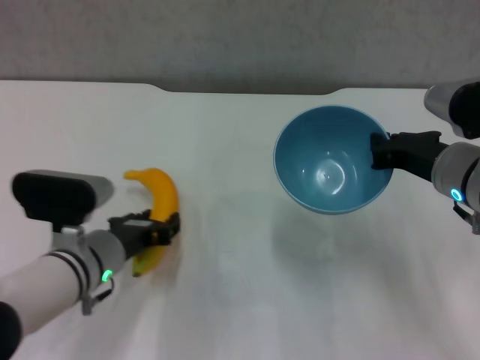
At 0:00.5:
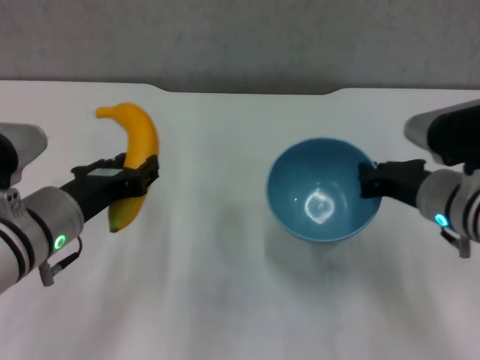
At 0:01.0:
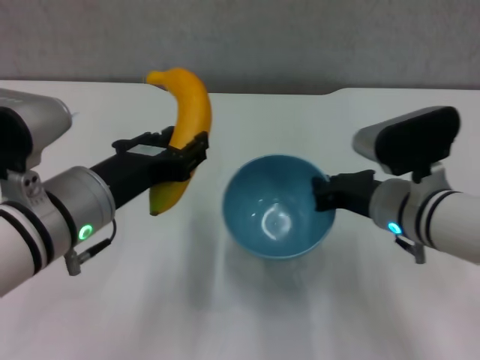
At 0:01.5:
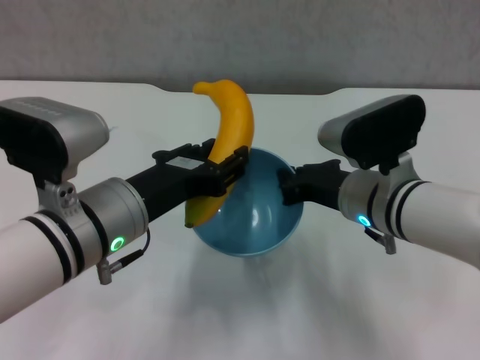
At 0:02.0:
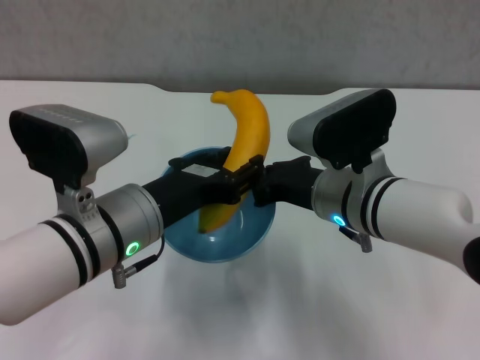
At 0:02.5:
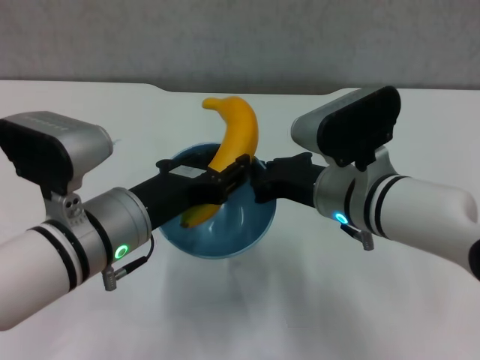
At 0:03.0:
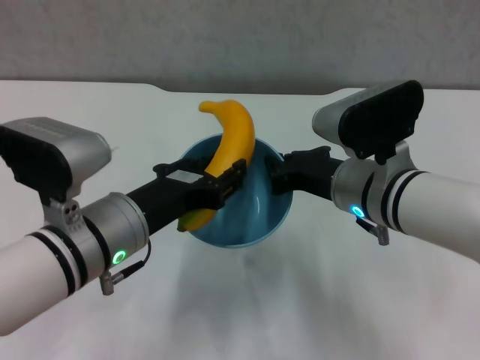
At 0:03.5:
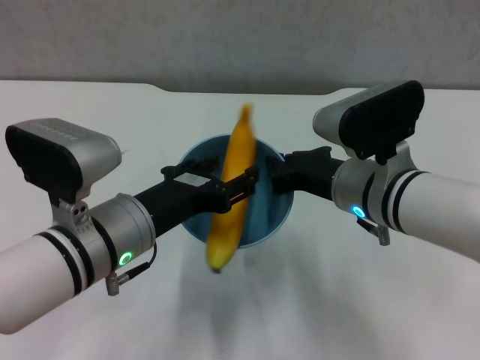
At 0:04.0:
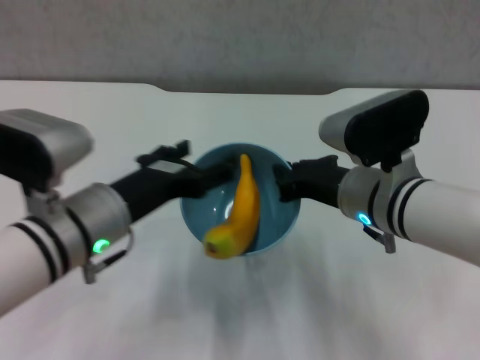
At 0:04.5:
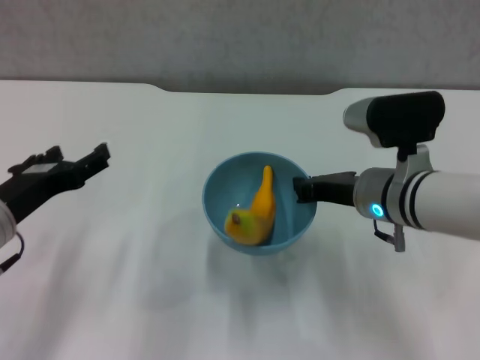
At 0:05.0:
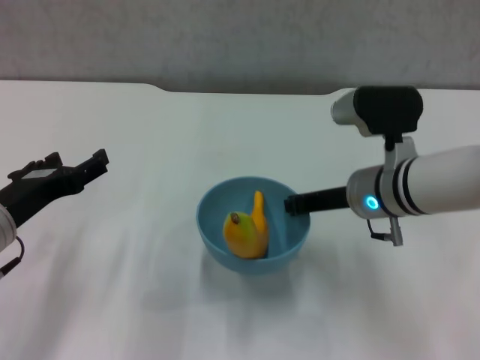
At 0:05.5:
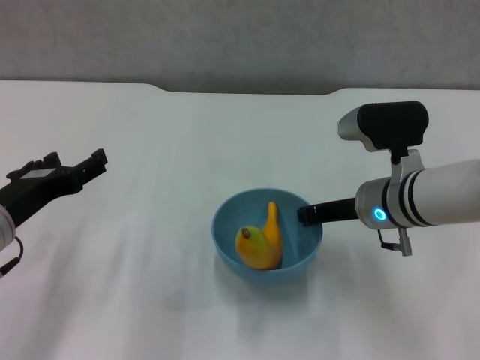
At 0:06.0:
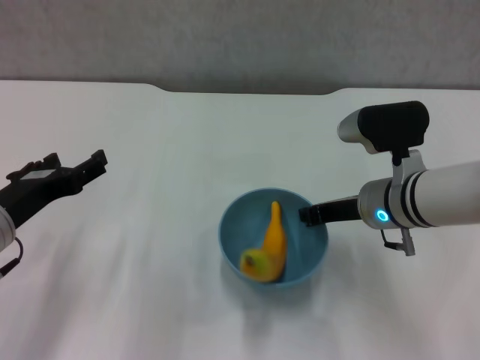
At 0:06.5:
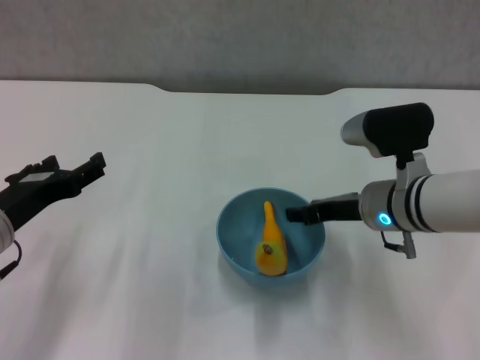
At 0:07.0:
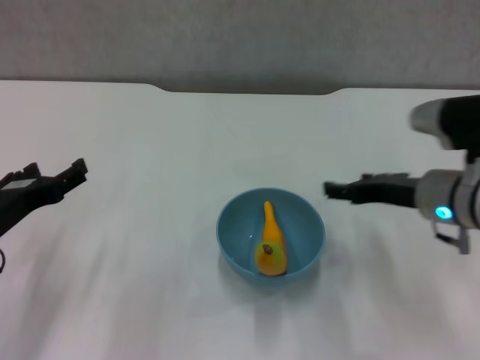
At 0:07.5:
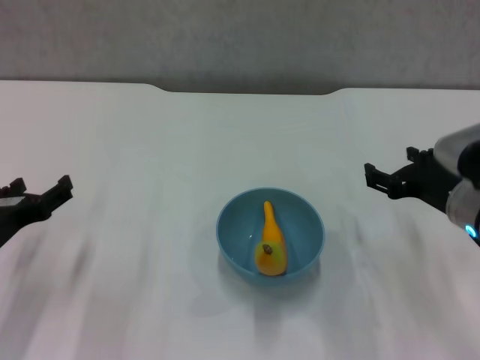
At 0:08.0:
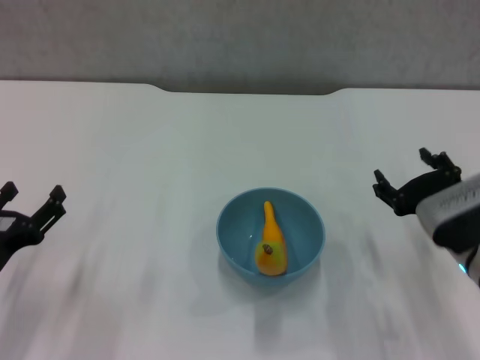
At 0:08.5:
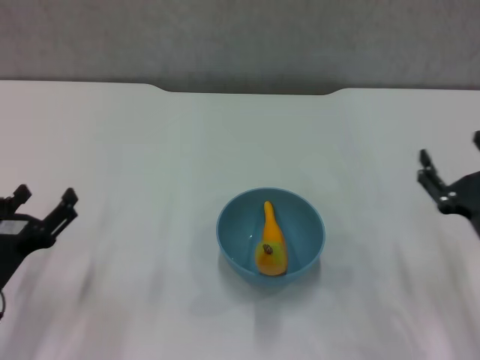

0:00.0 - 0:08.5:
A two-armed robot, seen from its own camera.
Step, 0:00.0 - 0:03.5: Place the banana in the blue bowl with left gripper.
Step, 0:04.0 - 0:06.5: Place the bowl on the table with right gripper.
0:00.0 - 0:02.0: The left gripper heads upward, covering approximately 10 cm; the right gripper travels to the left by roughly 10 cm.
0:02.0 - 0:04.0: The left gripper opens.
0:04.0 - 0:06.5: The right gripper changes place by roughly 5 cm, and opens up; the left gripper is displaced to the left by about 10 cm.
0:06.5 - 0:08.5: The right gripper heads backward and to the right, covering about 15 cm, and opens its fingers, while the left gripper heads downward, covering roughly 10 cm.

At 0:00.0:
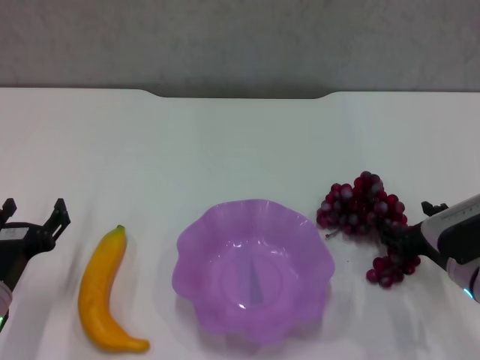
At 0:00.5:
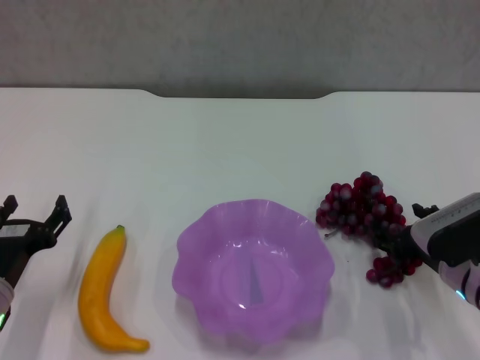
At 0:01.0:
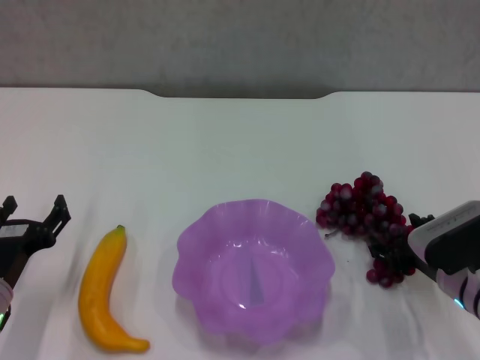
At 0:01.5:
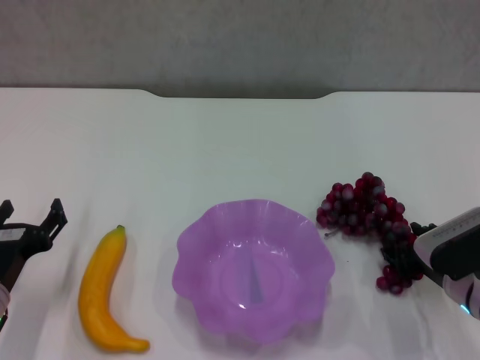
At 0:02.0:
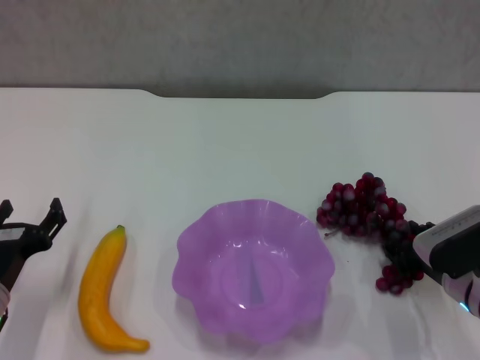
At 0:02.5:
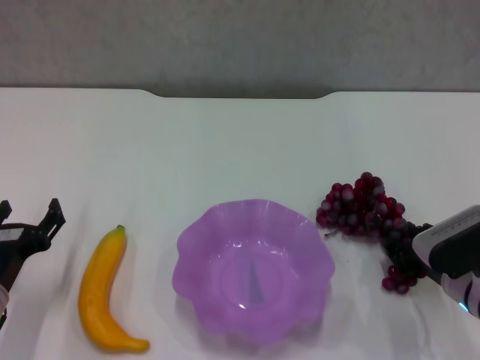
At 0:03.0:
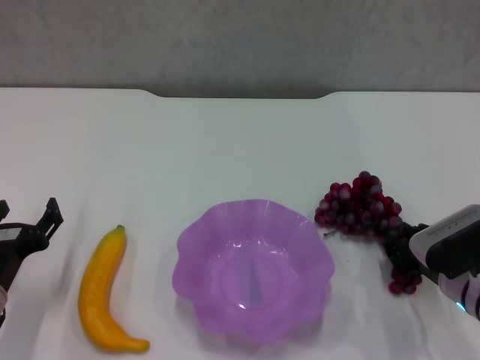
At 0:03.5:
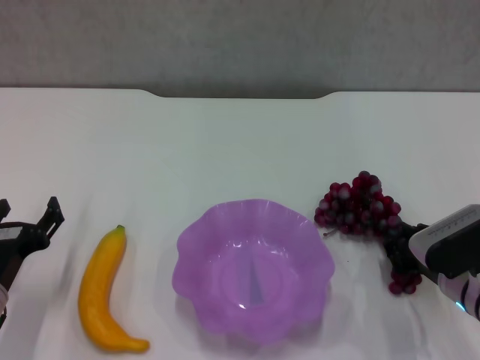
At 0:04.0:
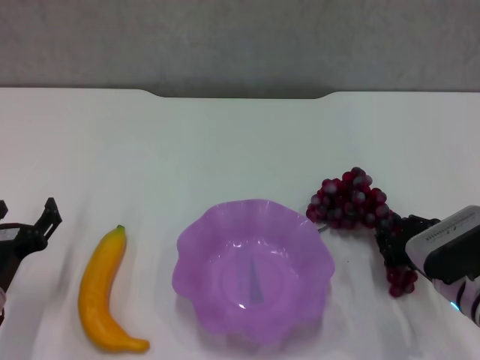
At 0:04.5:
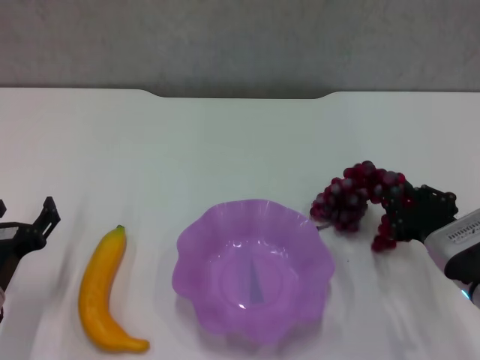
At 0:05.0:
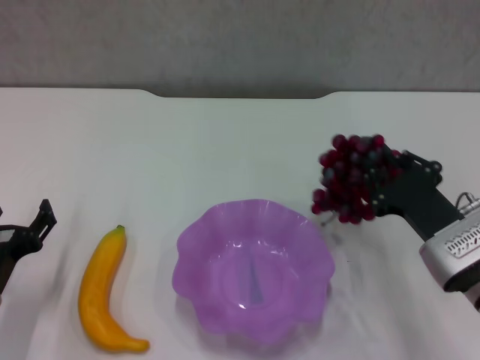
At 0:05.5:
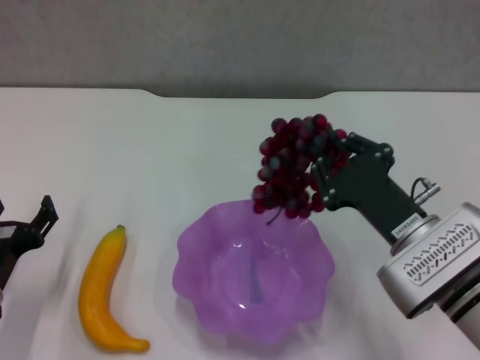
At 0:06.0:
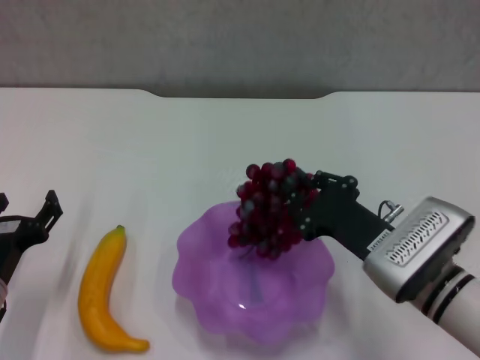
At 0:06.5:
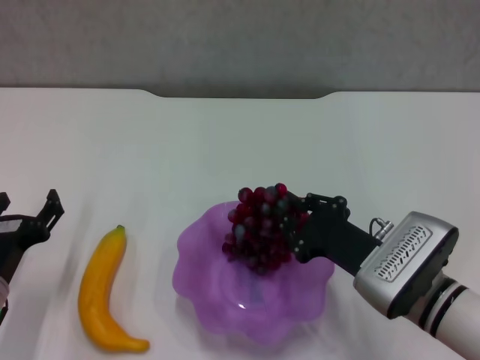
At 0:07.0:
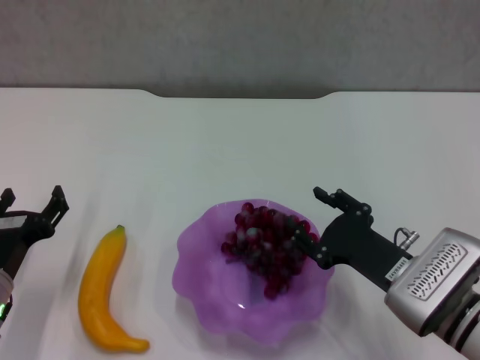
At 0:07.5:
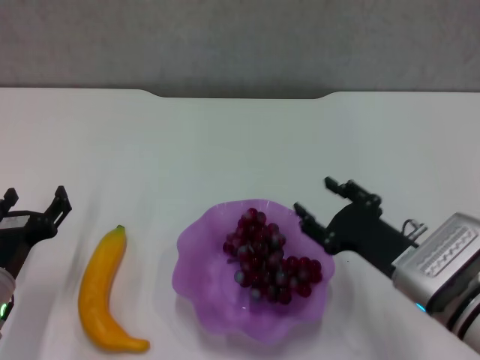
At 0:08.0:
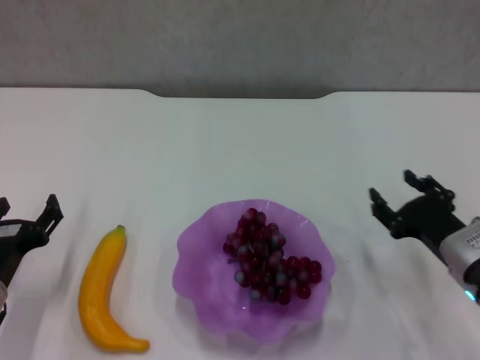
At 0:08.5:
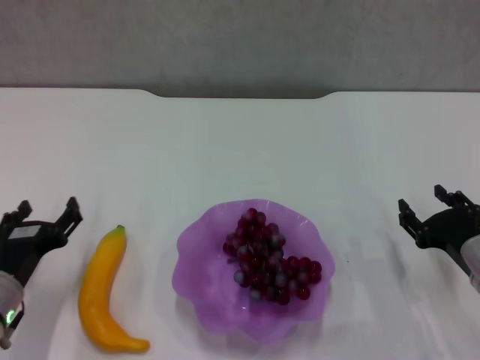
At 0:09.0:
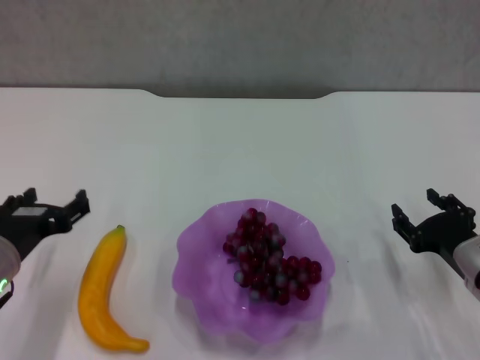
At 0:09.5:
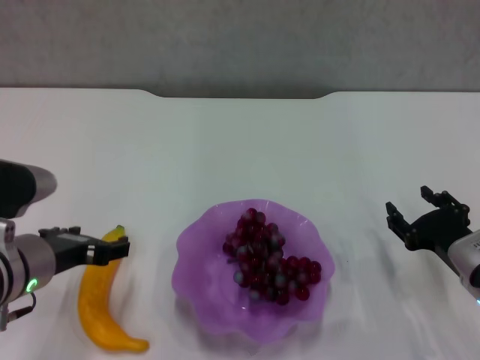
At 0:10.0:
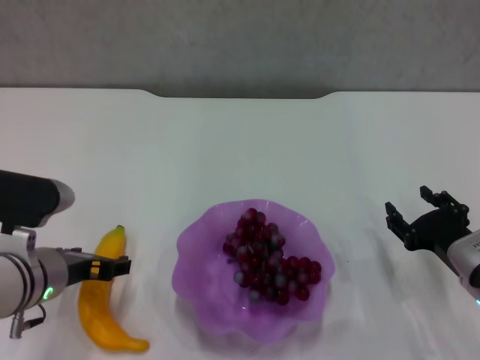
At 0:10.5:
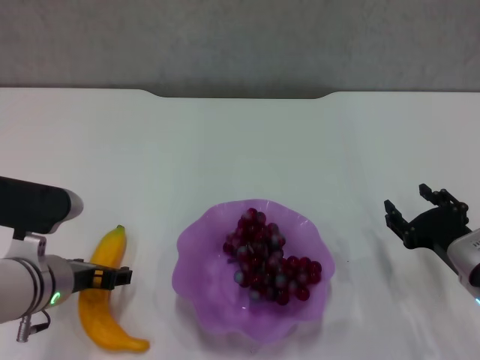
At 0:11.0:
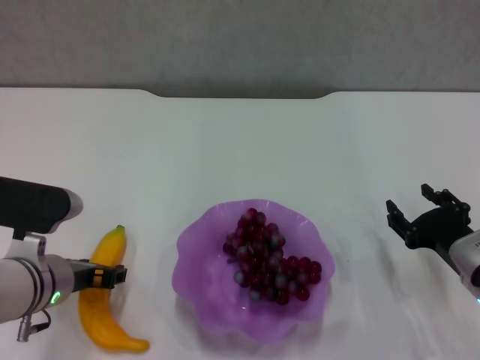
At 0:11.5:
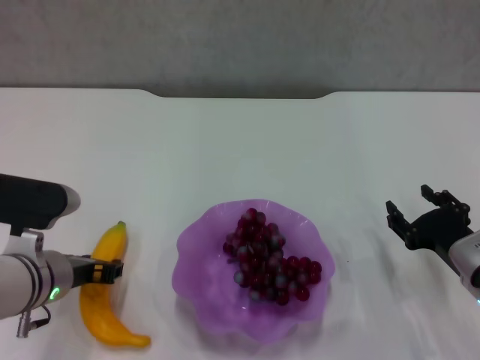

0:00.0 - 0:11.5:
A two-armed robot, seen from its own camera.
Step, 0:00.0 - 0:02.5: Grasp the grape with right gripper.
Step, 0:03.0 - 0:07.5: Place the grape in the purple plate with right gripper.
Step, 0:08.0 - 0:11.0: Grasp the banana with left gripper.
0:00.0 - 0:02.0: The right gripper closes its fingers.
0:02.0 - 0:04.0: The grippers make only small movements.
0:04.0 - 0:06.0: The right gripper goes about 5 cm to the left.
0:06.0 - 0:07.5: The right gripper opens.
0:07.5 - 0:09.5: The left gripper heads upward, covering approximately 10 cm. Meanwhile the right gripper shifts about 5 cm to the right.
0:09.5 - 0:11.5: The left gripper closes.

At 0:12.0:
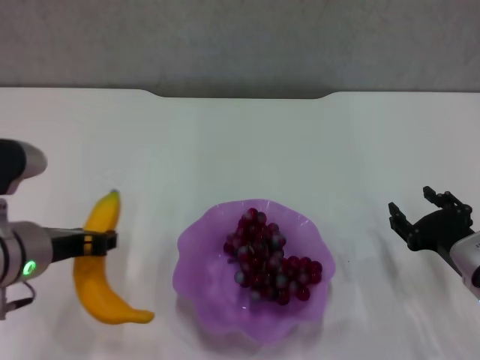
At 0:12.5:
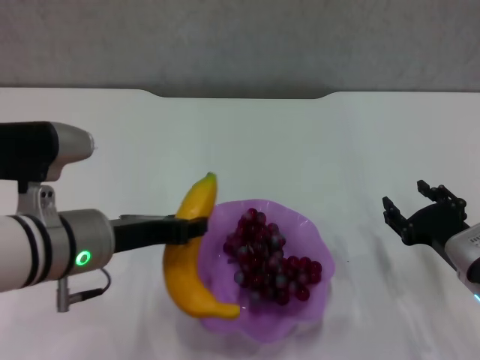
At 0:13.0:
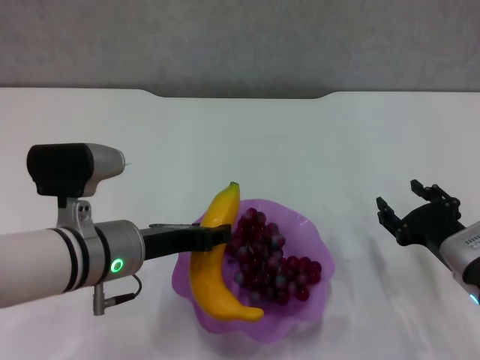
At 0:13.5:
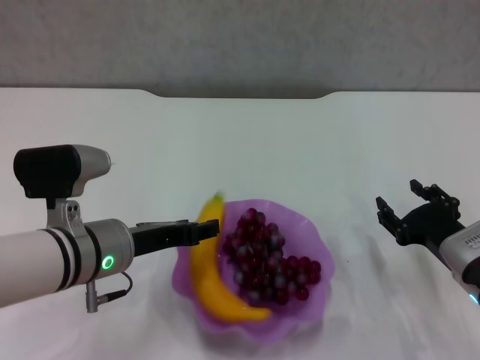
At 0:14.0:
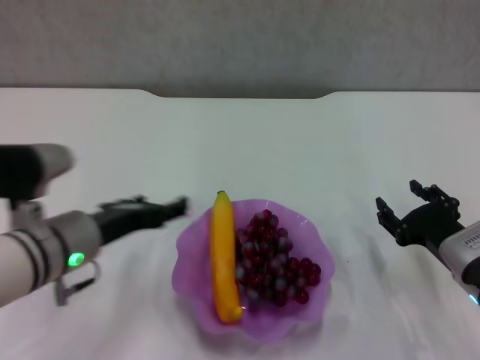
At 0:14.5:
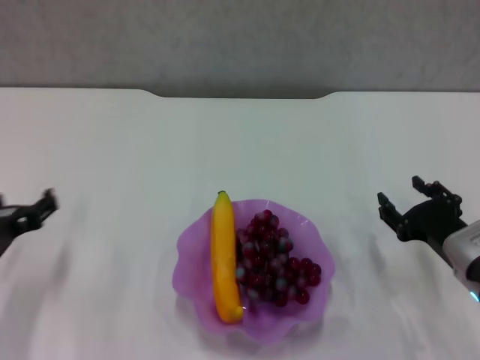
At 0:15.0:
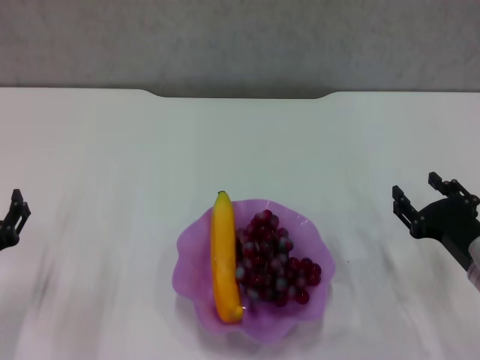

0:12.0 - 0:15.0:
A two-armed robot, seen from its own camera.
Step, 0:12.0 - 0:13.5: Place the banana in the purple plate with left gripper.
0:12.0 - 0:13.5: The left gripper shifts roughly 5 cm to the right.
0:13.5 - 0:15.0: The left gripper shifts some 15 cm to the left, downward and backward, and opens.
